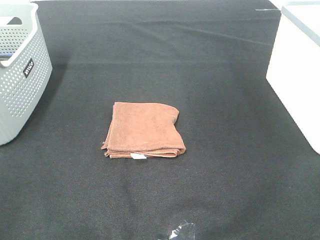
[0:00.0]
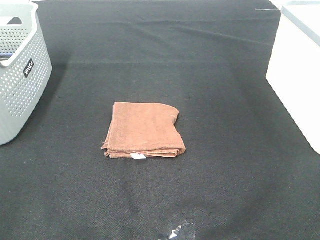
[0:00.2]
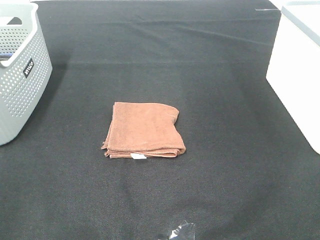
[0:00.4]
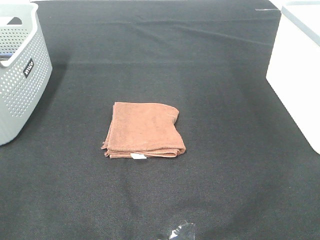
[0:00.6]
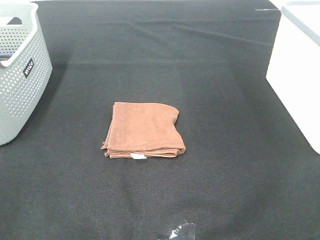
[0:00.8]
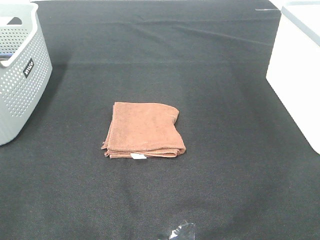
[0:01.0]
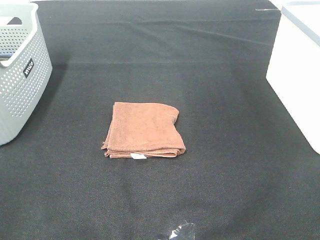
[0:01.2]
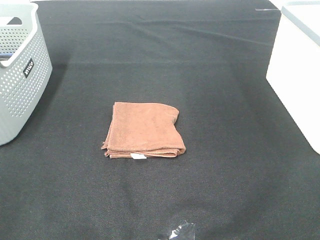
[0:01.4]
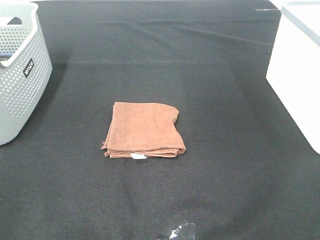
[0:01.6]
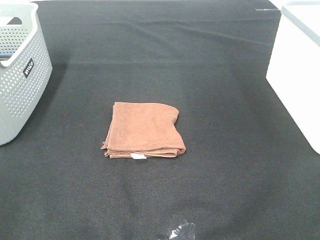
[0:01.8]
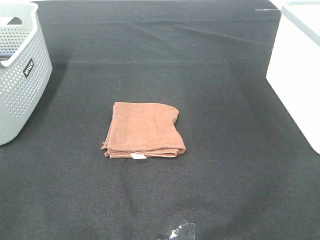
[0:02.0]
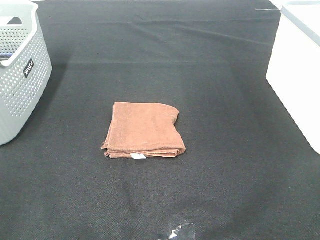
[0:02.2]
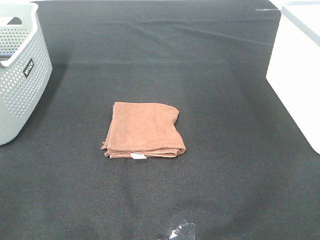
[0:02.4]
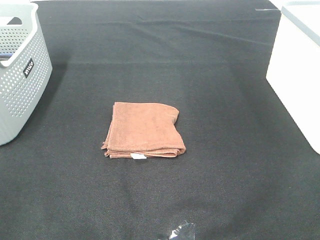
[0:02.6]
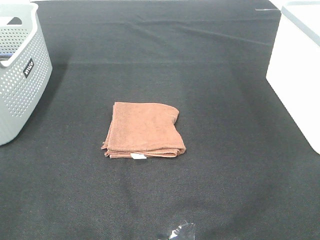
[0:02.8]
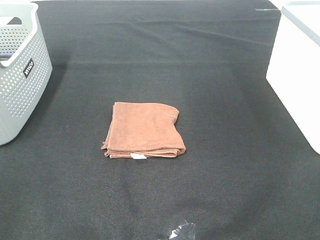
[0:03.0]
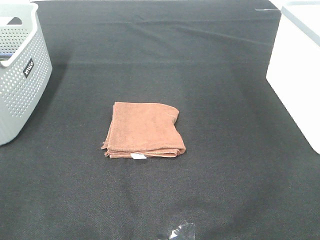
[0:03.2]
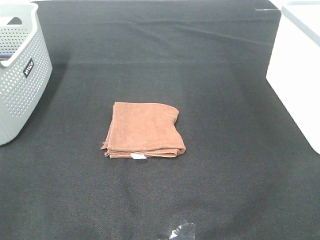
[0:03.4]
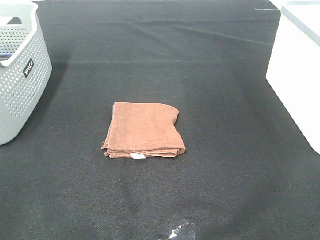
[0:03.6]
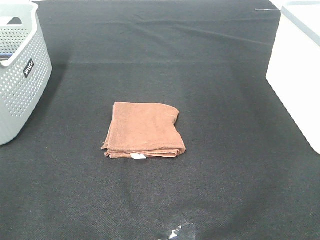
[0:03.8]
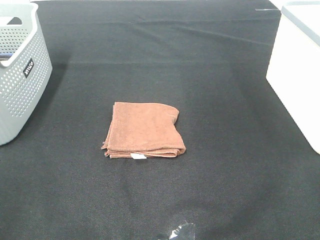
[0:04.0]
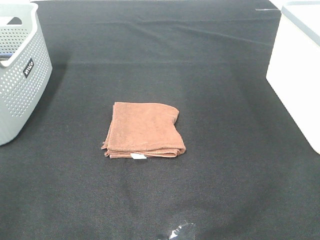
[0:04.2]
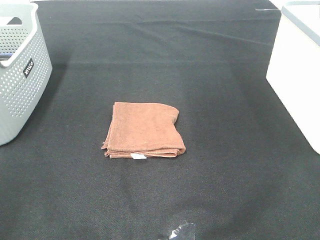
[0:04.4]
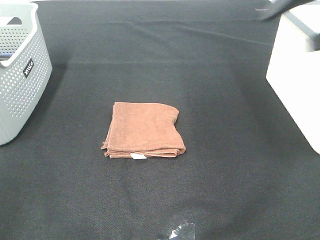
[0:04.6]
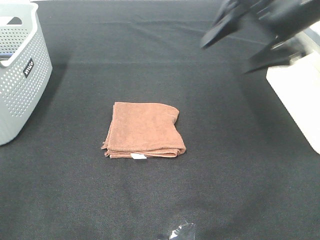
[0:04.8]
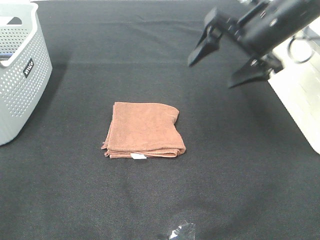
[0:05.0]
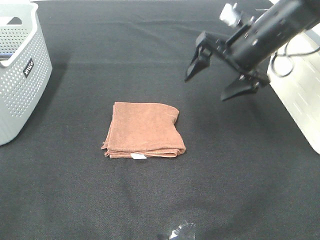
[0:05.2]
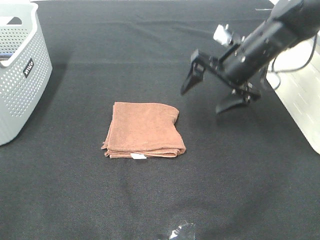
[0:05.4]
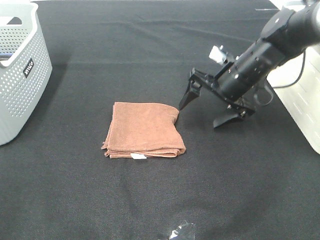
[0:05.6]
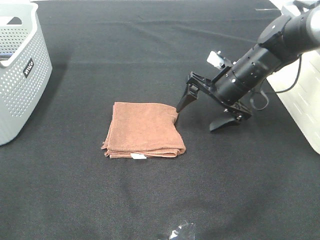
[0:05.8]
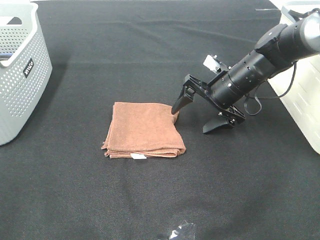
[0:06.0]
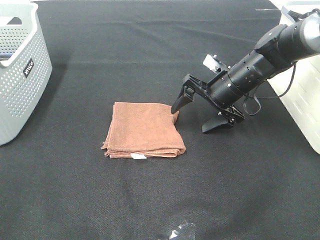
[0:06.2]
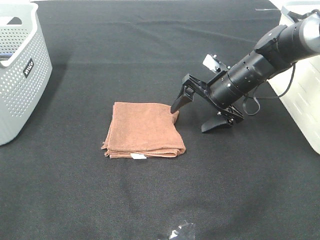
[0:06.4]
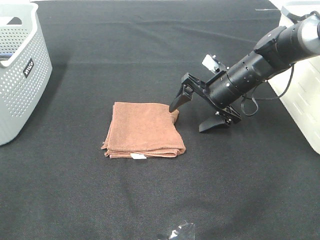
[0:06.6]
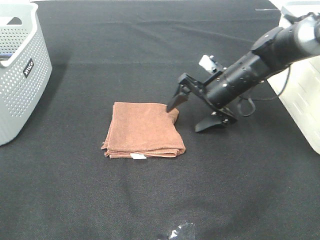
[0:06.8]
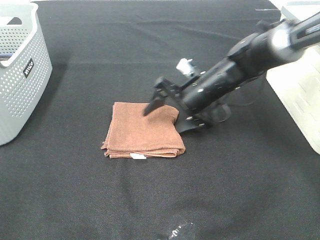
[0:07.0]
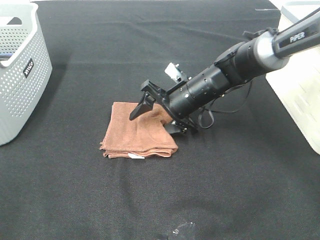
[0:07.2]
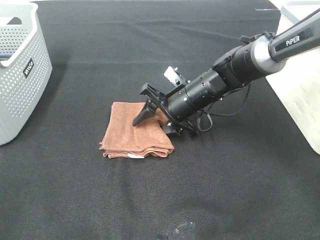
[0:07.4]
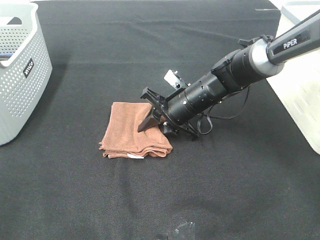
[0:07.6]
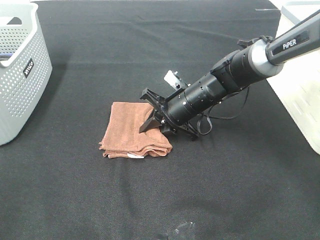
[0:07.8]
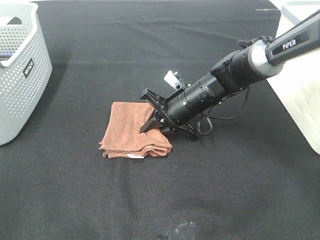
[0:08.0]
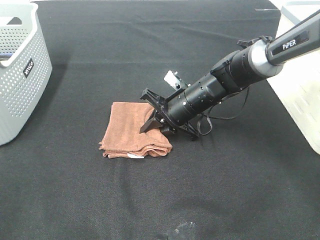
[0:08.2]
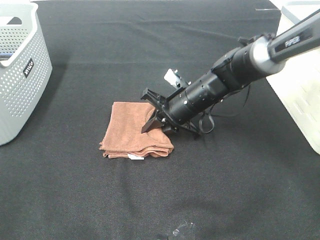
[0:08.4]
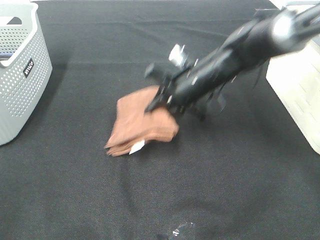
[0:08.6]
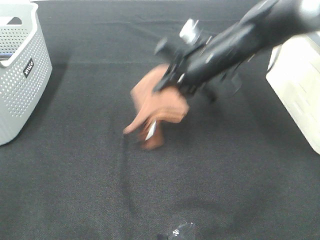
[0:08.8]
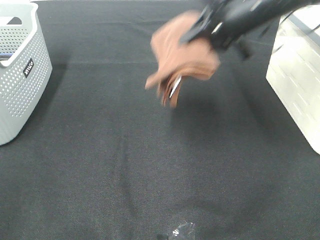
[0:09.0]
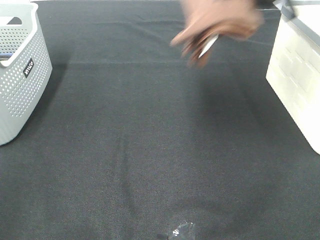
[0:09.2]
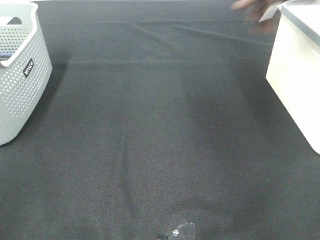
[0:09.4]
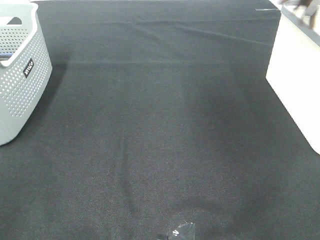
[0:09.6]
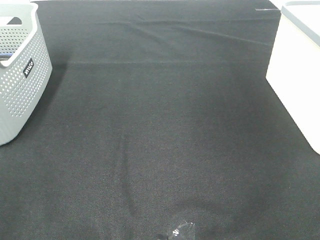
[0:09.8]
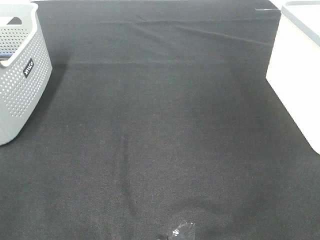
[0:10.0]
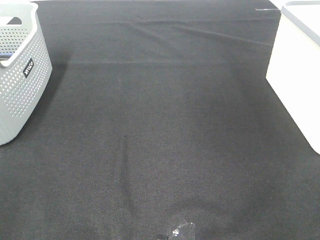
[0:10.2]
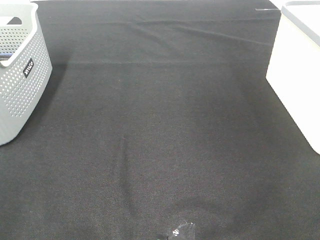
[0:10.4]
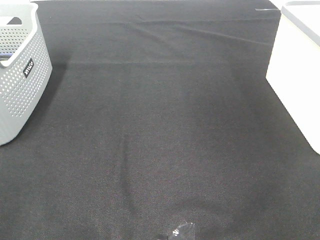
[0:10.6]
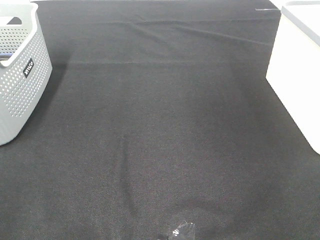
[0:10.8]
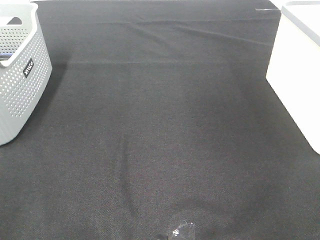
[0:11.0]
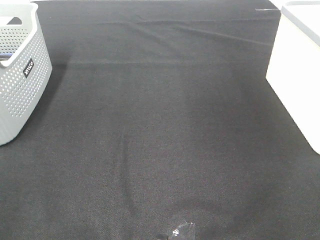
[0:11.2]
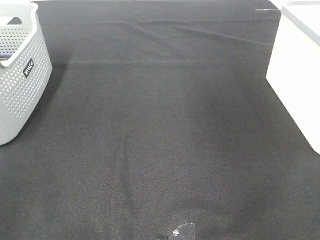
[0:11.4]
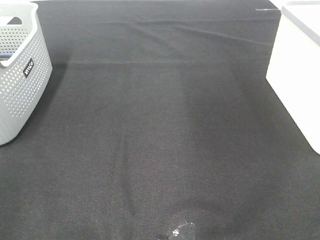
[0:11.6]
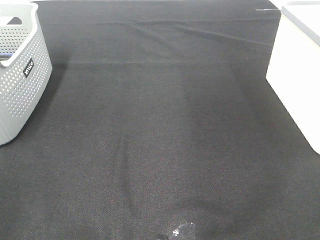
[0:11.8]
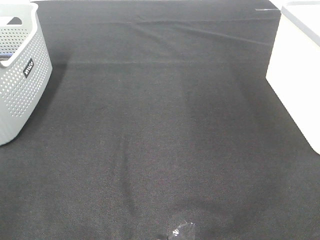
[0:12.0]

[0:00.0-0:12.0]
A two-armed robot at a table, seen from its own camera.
Step, 0:00.0 to 0:08.0: Right hand: grab the folded brown towel.
Step, 0:08.2 to 0:10.6: Right hand: place the brown towel in right basket.
0:00.0 to 0:03.0: The two grippers keep their place.
0:04.4 to 0:06.0: The right gripper travels downward, forward and to the left by some 35 cm.
0:06.0 to 0:07.6: The right gripper moves to the left, approximately 10 cm, and closes.
0:07.6 to 0:09.0: The right gripper goes approximately 25 cm upward and to the right.
0:09.0 to 0:10.4: The right gripper heads to the right, covering roughly 25 cm, and opens its fingers.

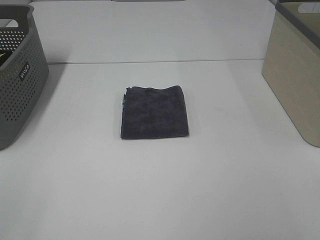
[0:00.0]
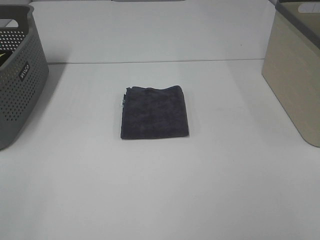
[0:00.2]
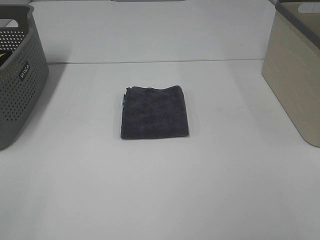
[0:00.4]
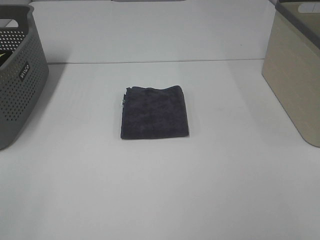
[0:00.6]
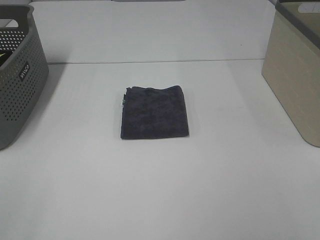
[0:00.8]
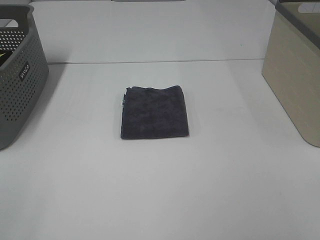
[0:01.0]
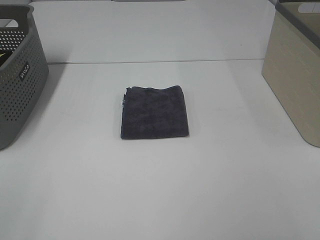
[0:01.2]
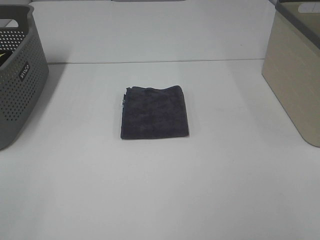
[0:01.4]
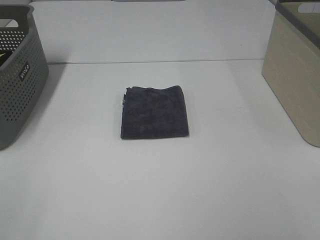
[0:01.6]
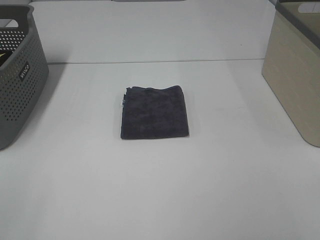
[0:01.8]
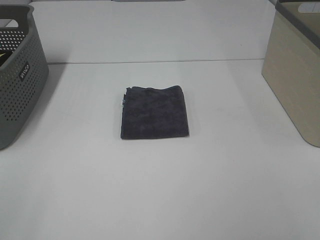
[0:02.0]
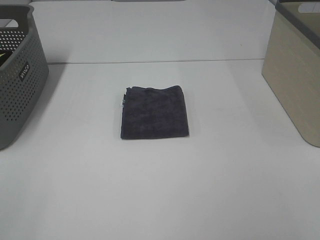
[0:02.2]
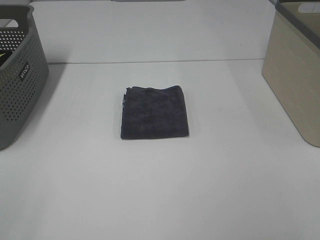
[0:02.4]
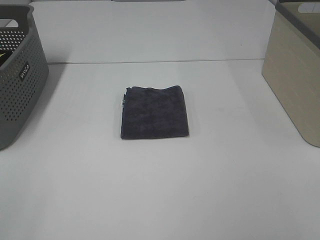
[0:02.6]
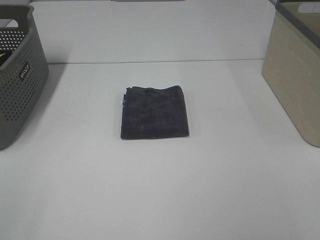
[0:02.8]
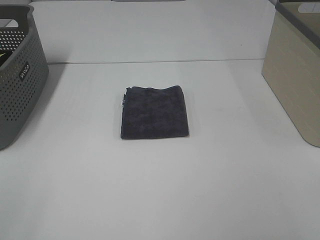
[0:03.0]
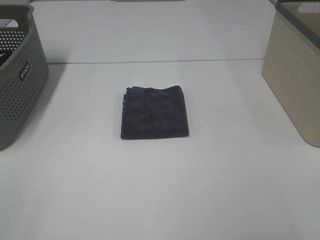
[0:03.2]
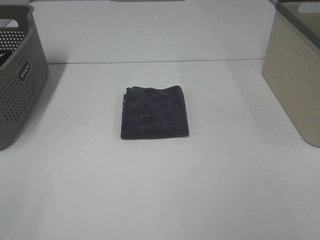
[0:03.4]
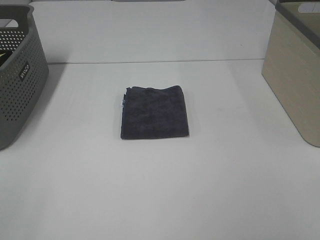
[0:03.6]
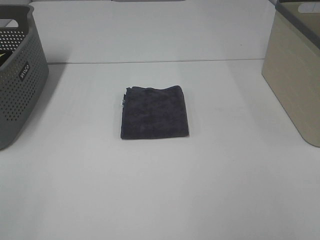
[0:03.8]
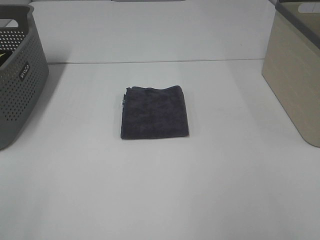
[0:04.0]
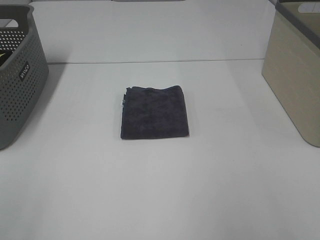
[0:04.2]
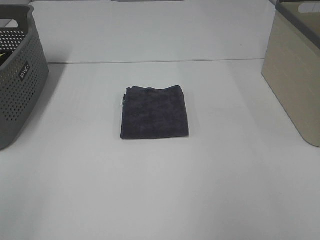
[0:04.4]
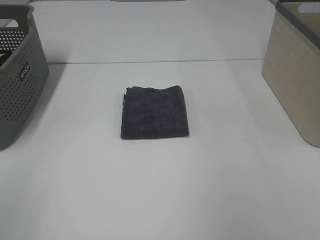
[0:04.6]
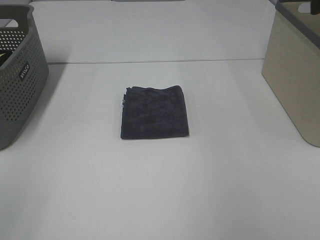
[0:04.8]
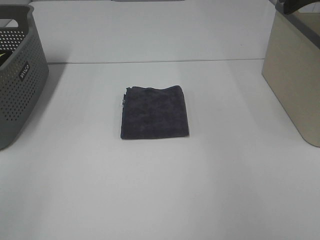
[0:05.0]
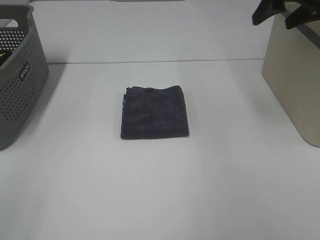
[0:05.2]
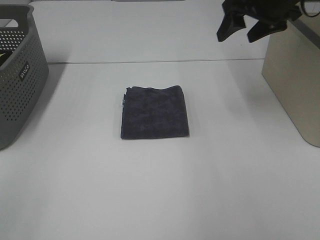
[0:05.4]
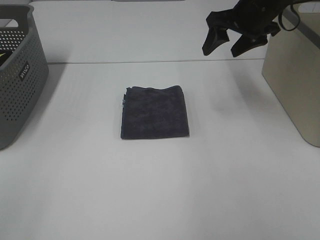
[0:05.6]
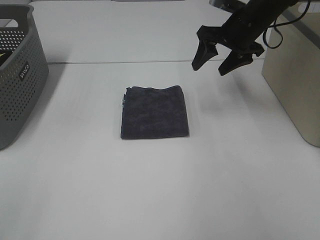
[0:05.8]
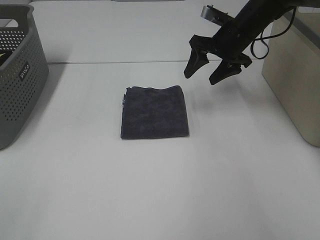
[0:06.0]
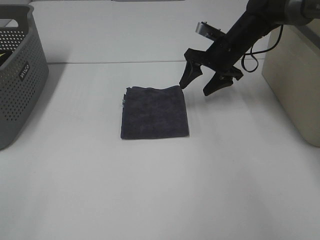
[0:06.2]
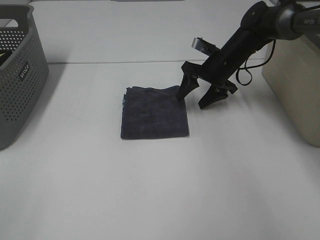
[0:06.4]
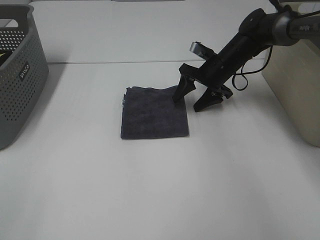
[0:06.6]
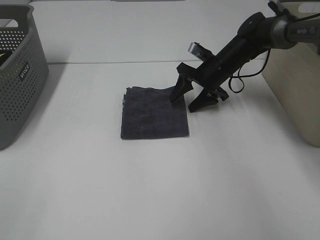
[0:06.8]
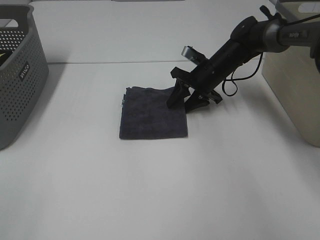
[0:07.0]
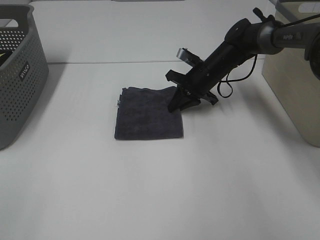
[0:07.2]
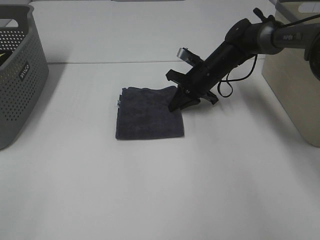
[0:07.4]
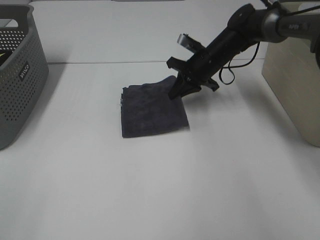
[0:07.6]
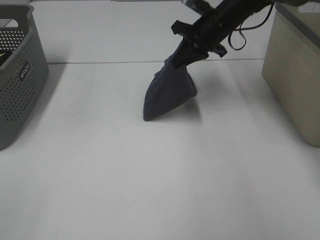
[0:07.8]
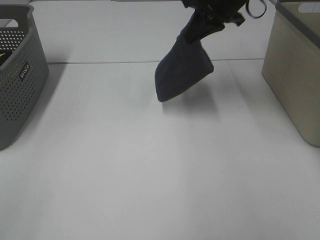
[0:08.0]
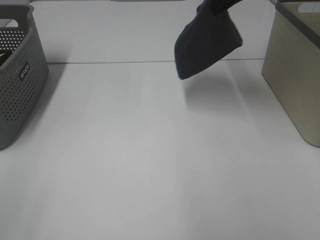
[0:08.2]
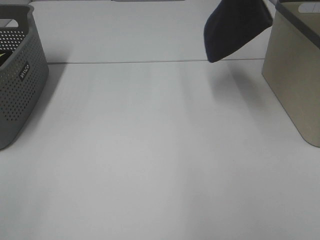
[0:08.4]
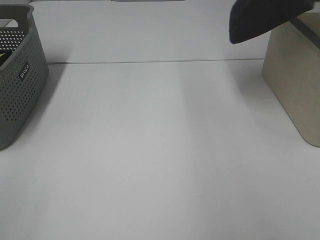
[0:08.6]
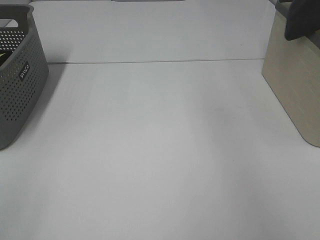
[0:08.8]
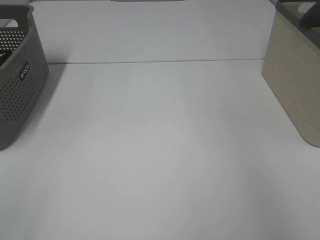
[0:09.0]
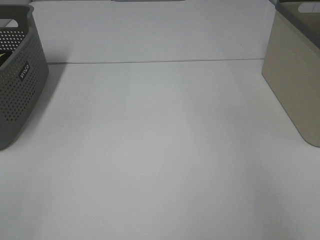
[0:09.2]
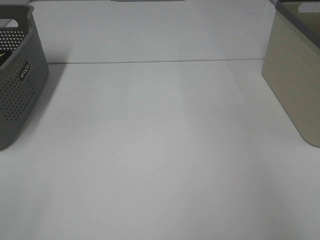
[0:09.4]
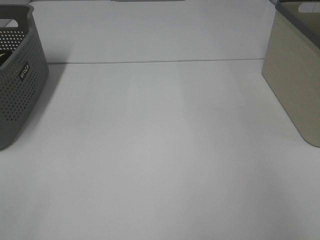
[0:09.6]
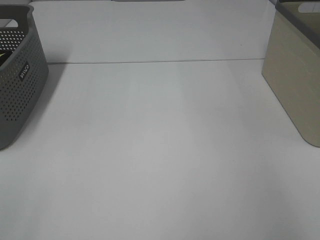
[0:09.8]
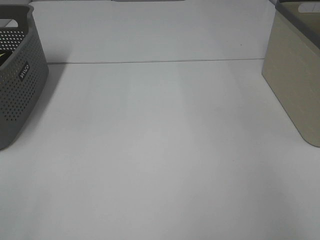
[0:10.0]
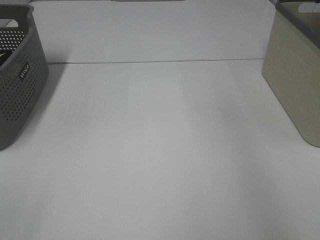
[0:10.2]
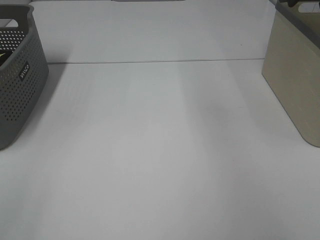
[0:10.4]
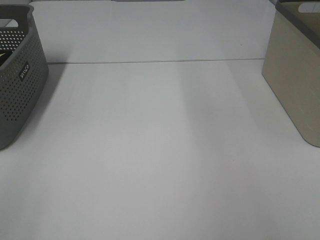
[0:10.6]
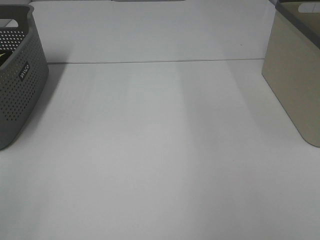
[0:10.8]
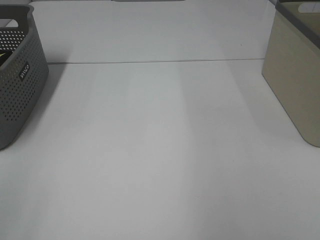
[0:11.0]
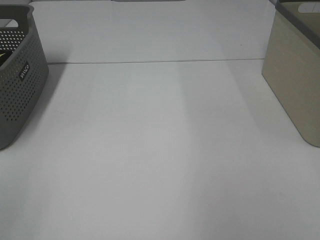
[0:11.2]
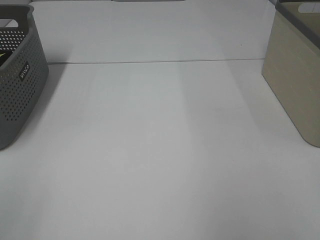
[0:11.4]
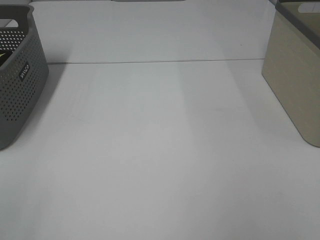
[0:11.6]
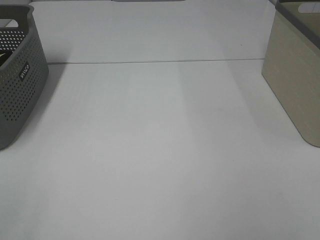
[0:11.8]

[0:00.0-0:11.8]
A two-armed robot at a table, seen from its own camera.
Step, 0:00.0 to 0:07.2: Right hand: grab the folded grey towel.
Step, 0:07.4 to 0:09.8: Right hand: place the grey towel in right basket.
0:00.0 to 0:03.0: The two grippers keep their place.
0:04.4 to 0:06.0: The right gripper heads forward, downward and to the left, covering approximately 40 cm.
0:06.0 to 0:07.4: The right gripper goes some 10 cm downward, and closes its fingers.
0:07.4 to 0:08.8: The right gripper is displaced upward and to the right by about 40 cm.
0:08.8 to 0:10.4: The right gripper heads downward and to the left, covering about 10 cm, and opens up.
